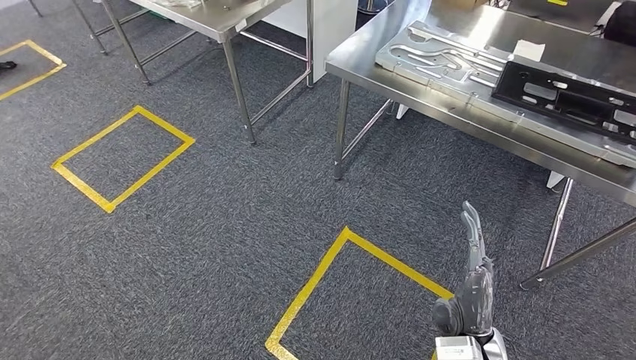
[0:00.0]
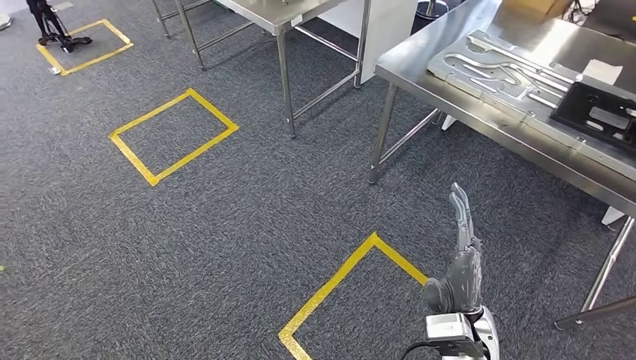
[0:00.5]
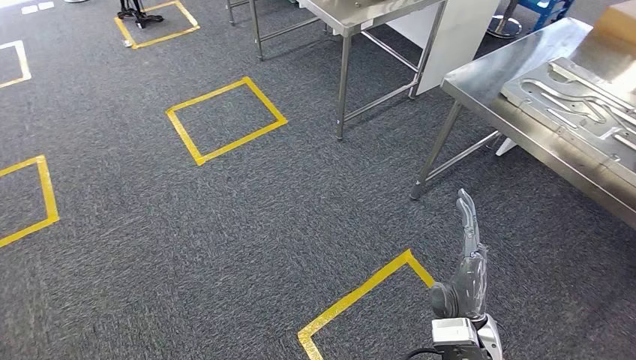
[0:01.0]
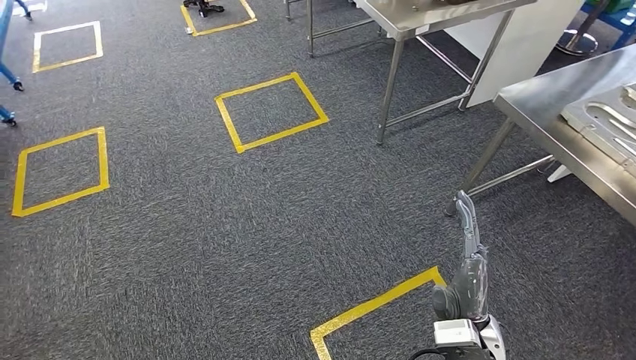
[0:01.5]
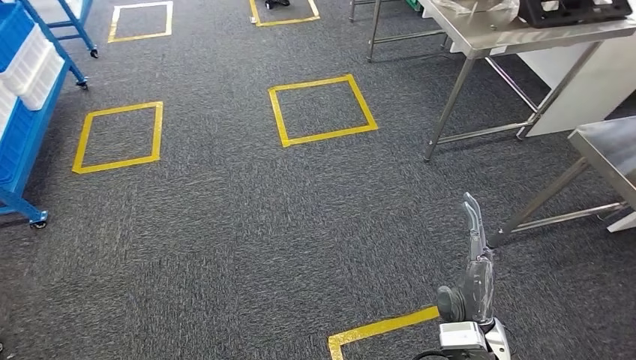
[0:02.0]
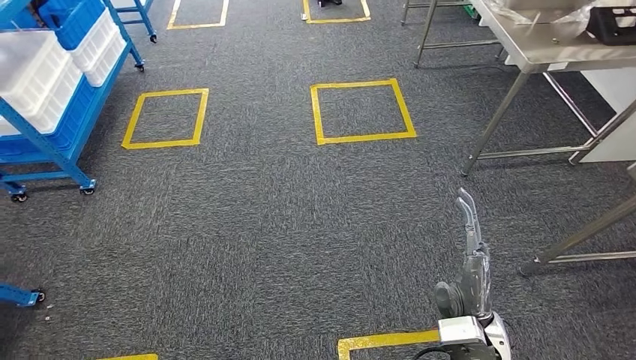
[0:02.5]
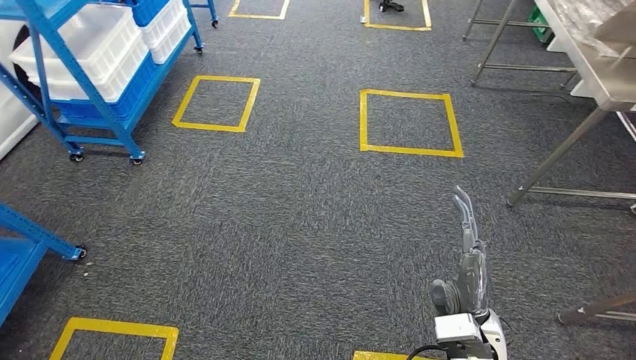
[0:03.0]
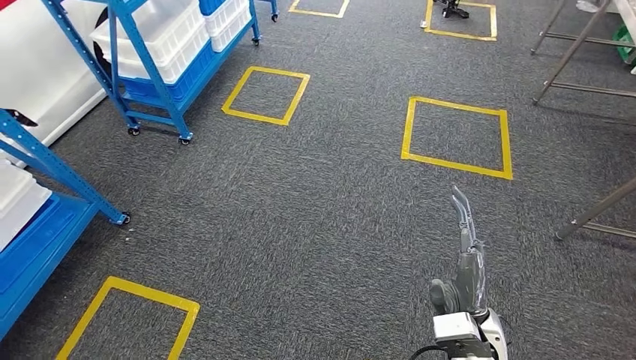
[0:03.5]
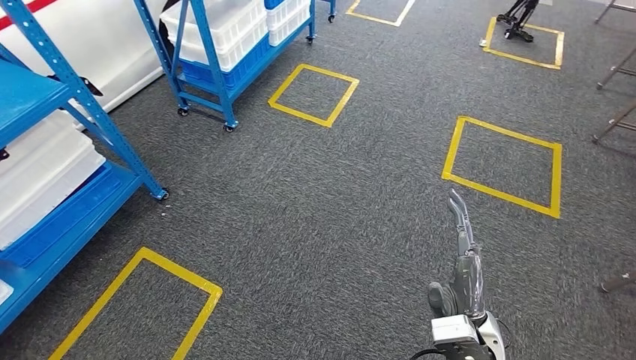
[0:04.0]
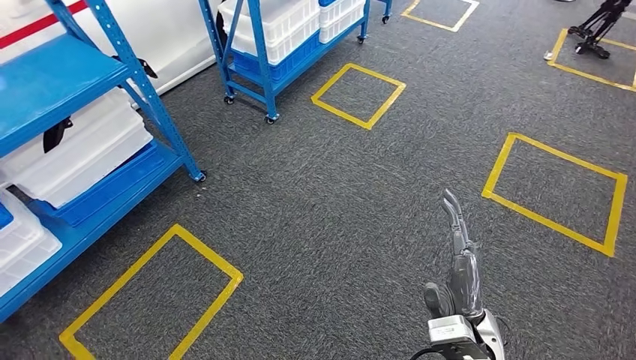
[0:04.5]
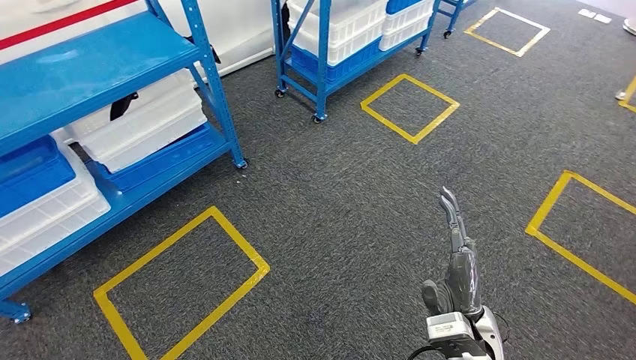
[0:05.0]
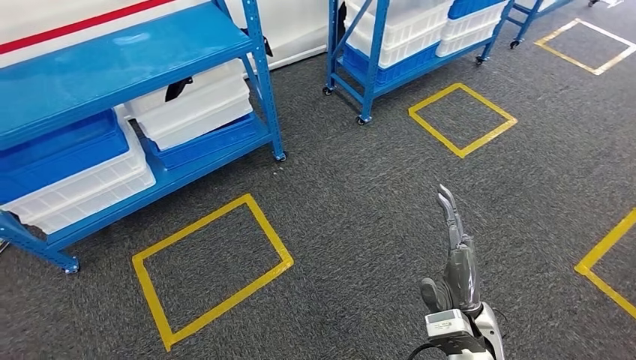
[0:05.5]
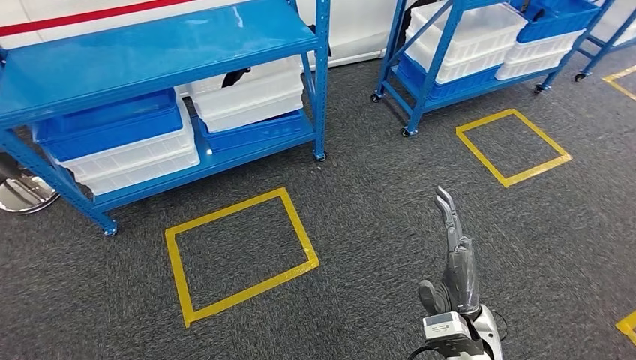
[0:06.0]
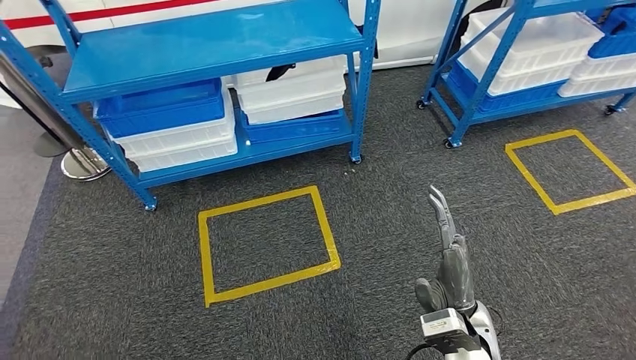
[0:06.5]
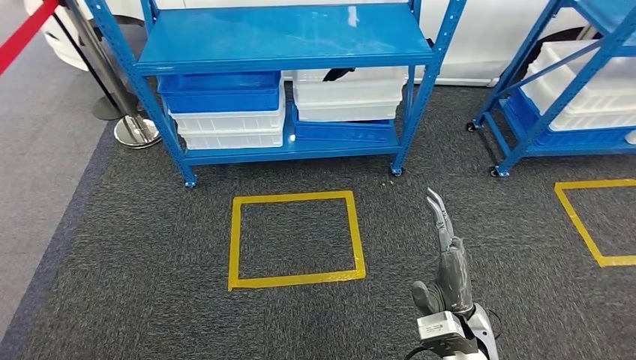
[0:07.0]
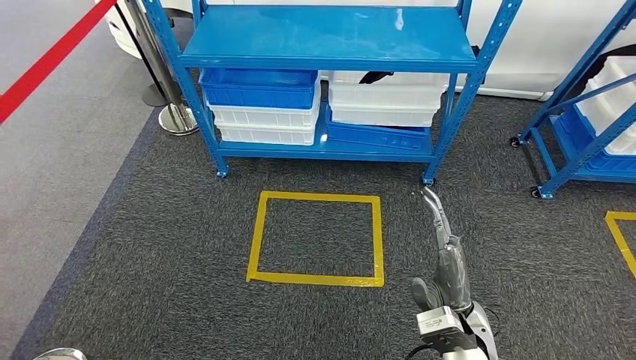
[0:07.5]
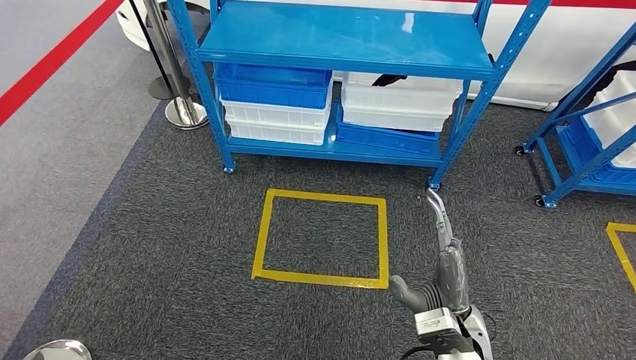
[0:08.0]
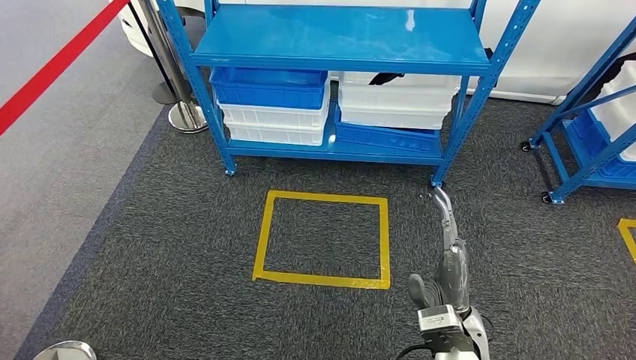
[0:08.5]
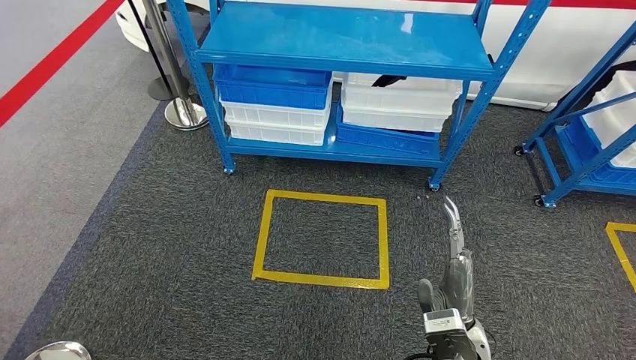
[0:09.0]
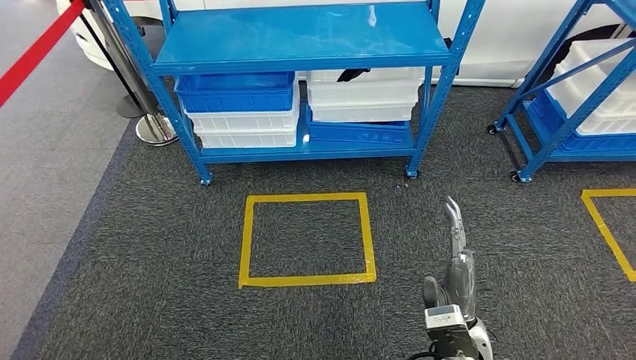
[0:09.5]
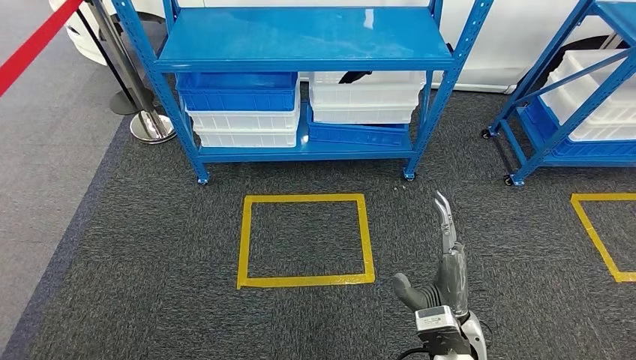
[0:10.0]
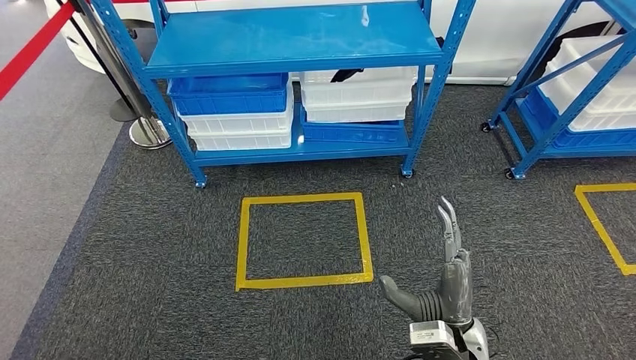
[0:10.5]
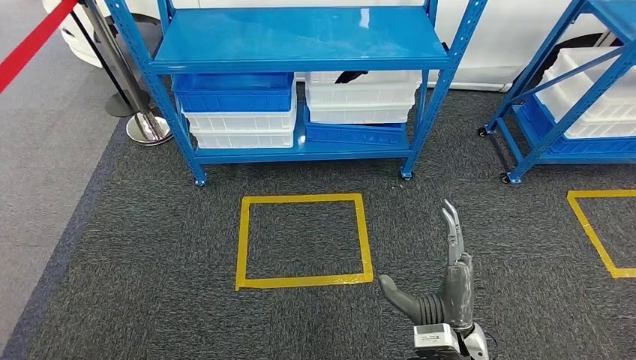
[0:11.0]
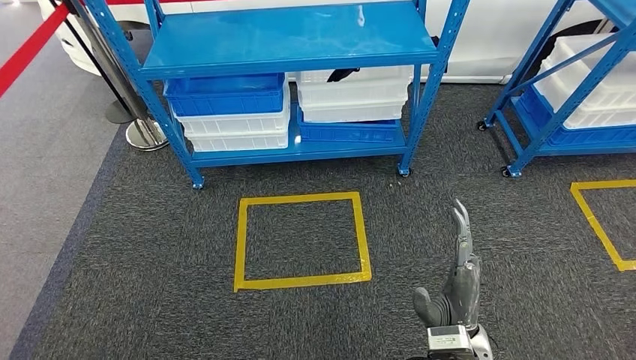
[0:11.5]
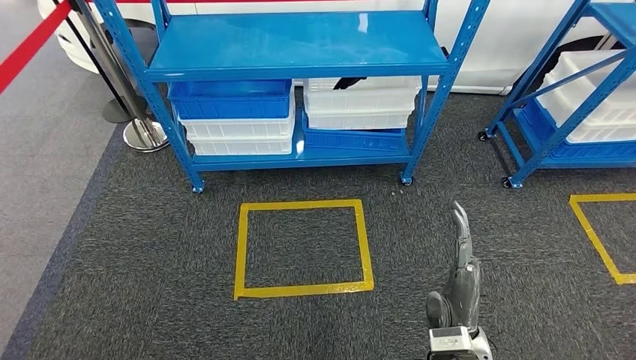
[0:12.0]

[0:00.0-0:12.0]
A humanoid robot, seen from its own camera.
0:10.0 to 0:12.0: The hands stay close to where they were, moving slightly.

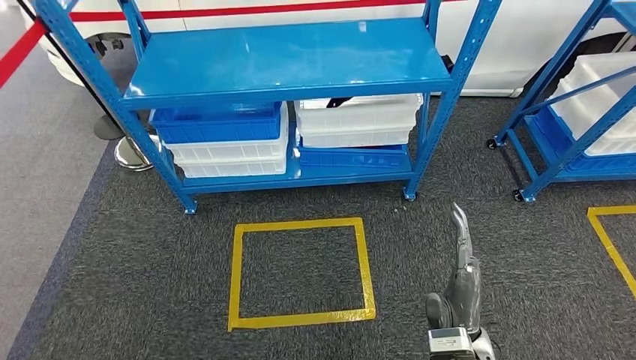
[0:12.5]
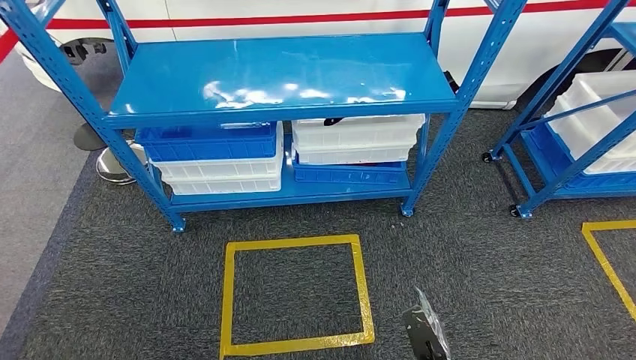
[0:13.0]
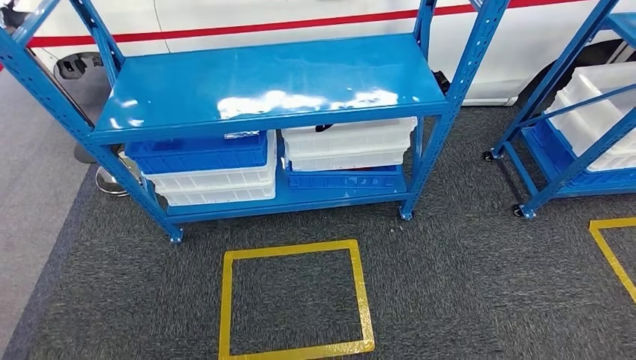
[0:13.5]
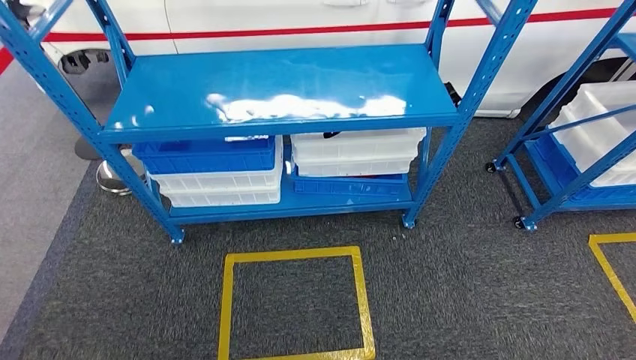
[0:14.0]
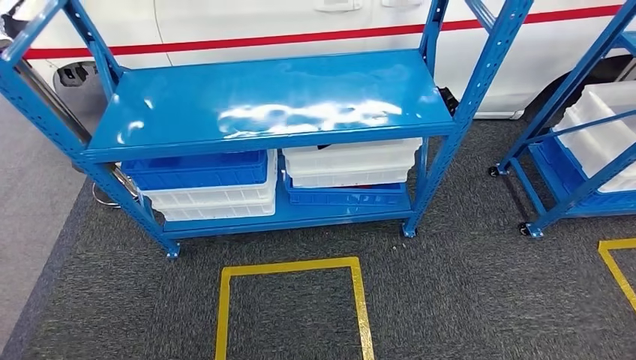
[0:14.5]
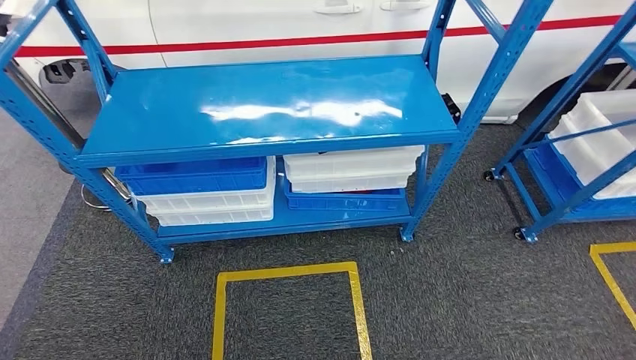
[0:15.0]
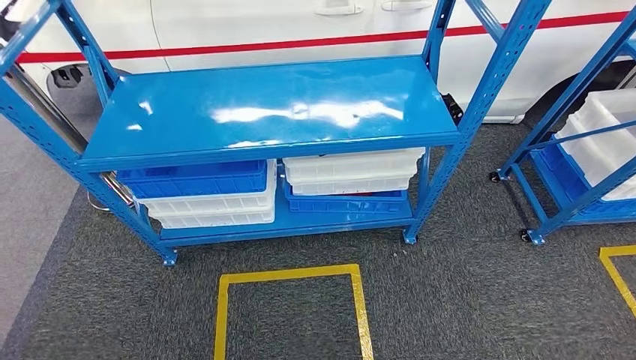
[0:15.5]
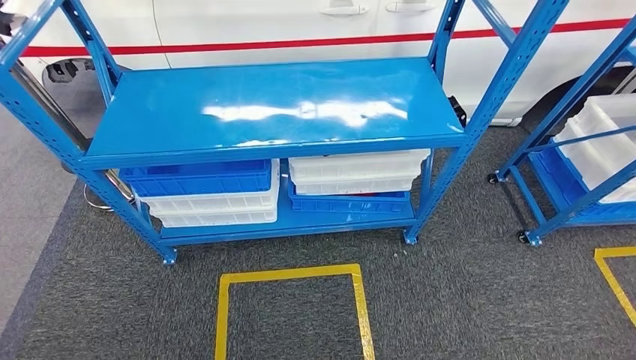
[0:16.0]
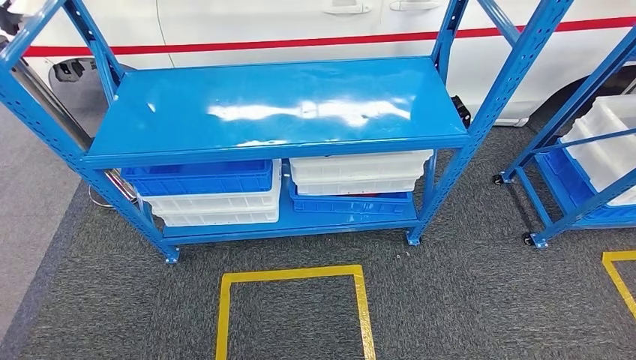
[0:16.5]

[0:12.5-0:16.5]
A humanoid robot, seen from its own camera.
Step, 0:12.5 to 0:16.5: Move to the initial position of the shelf.
